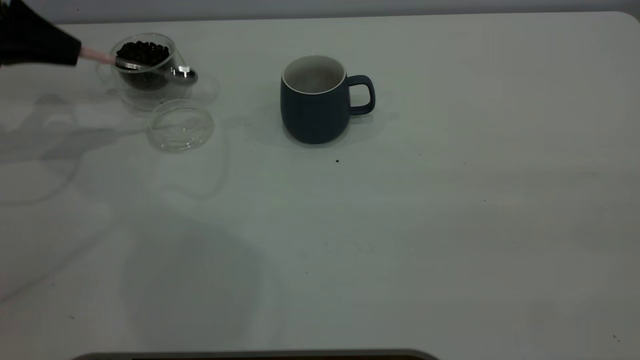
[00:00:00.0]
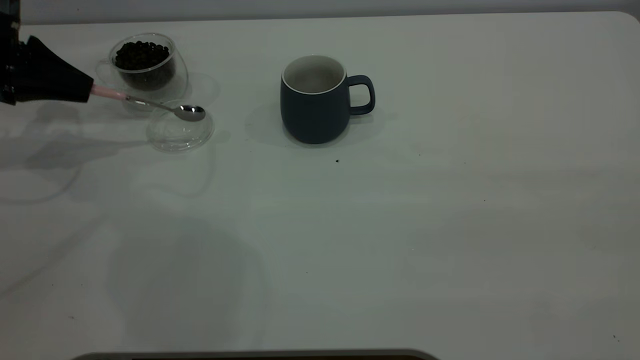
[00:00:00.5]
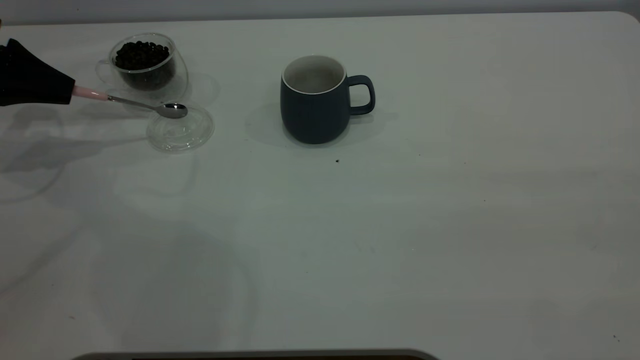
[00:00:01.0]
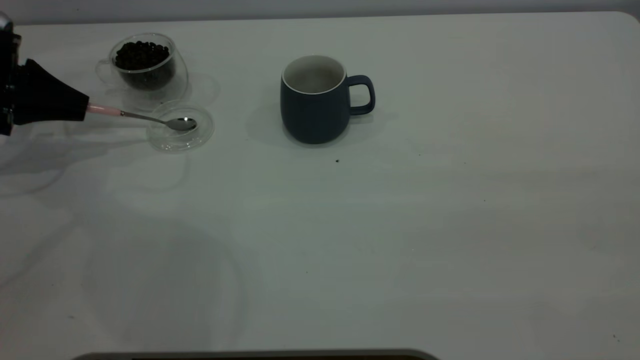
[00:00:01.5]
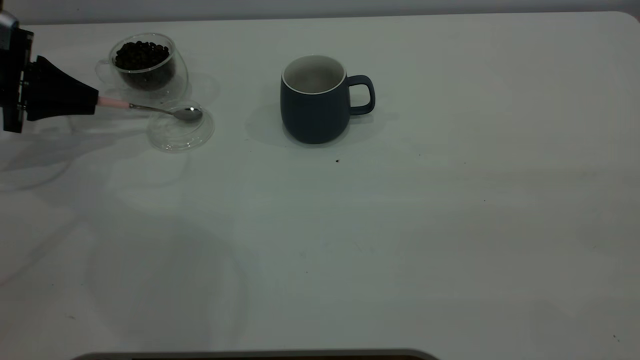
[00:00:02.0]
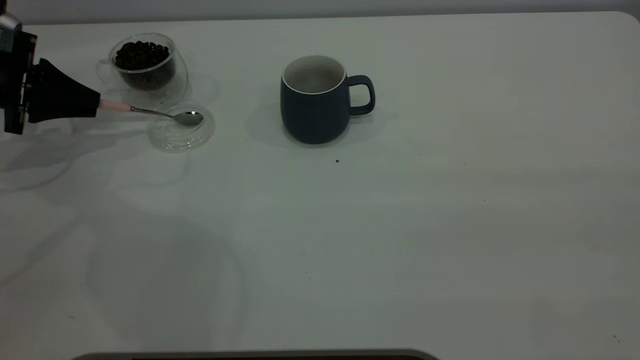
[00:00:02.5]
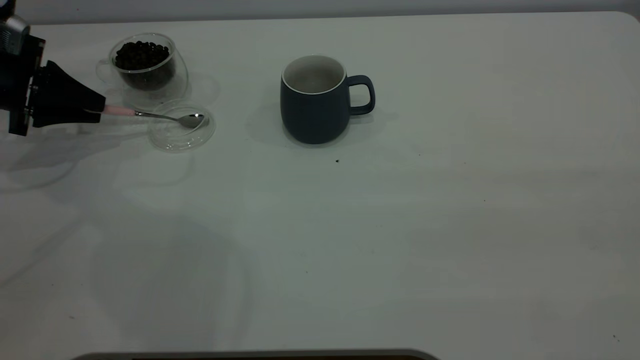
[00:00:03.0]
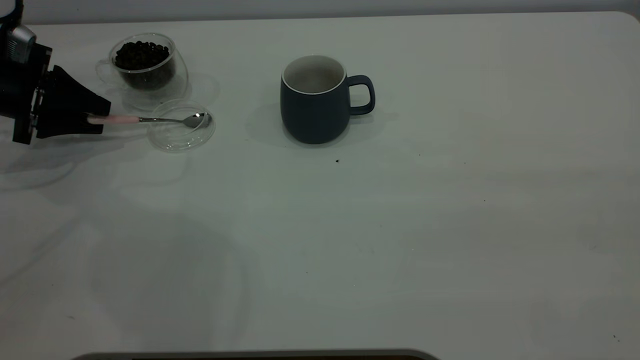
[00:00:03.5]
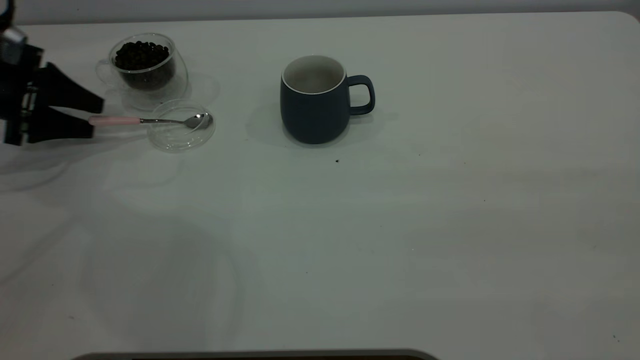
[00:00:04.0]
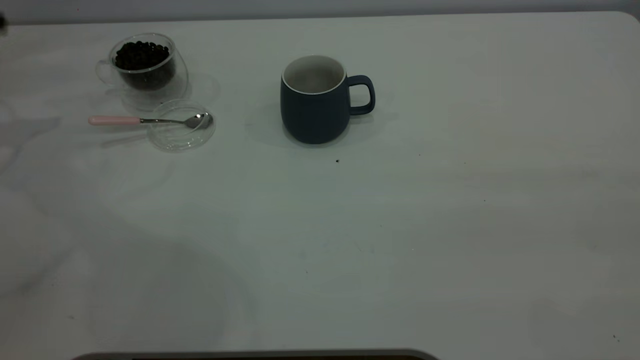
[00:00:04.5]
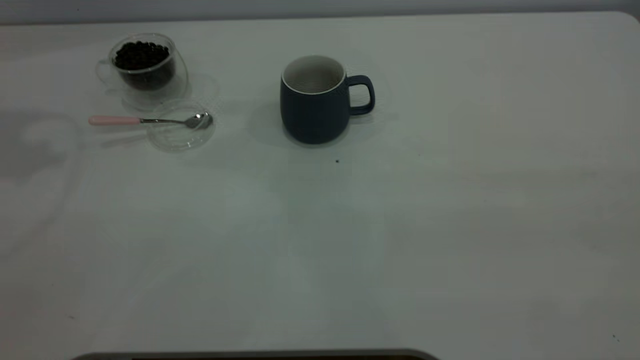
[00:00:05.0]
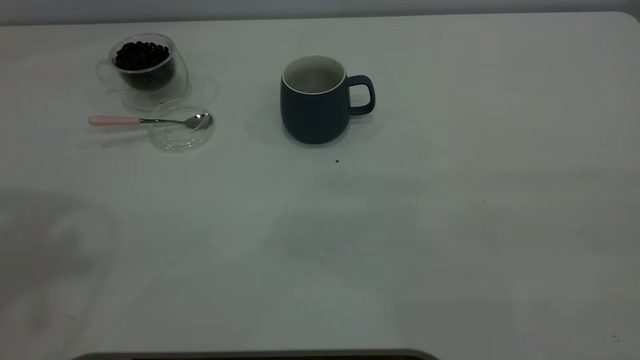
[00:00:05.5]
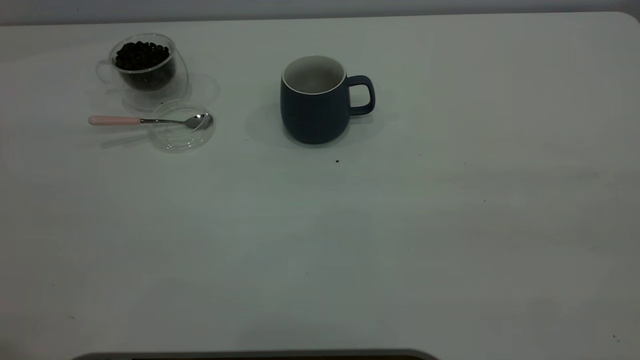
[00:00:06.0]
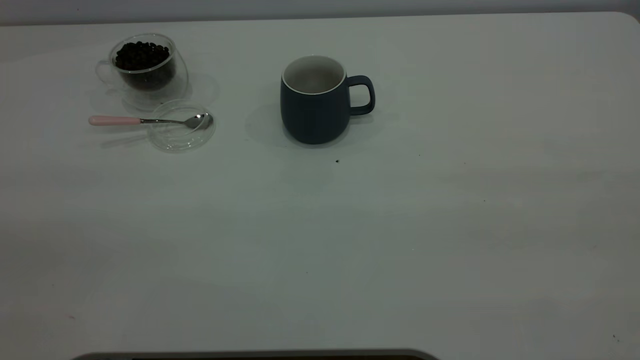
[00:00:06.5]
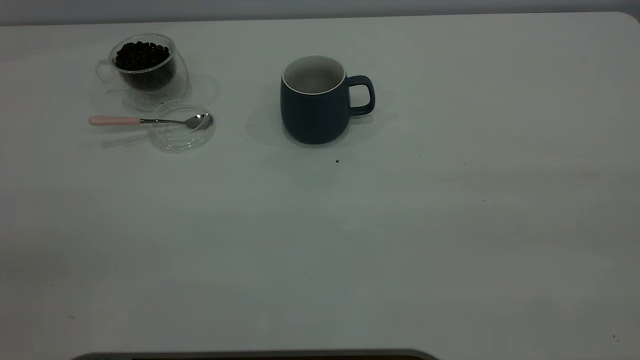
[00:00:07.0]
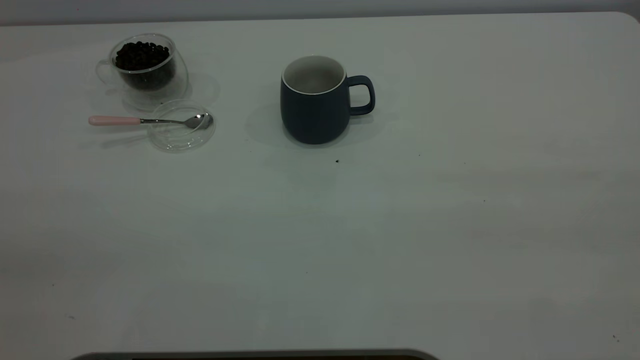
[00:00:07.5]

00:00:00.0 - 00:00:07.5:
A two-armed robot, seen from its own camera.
Task of the whole recording: the right gripper place the grey cup in the center of the table, the left gripper take the pink spoon from the cup lid and scoop out the coffee beans from the coffee cup and put them into the grey cup, the left gripper put the spoon back into the cup lid.
Step, 00:00:00.0 - 00:00:04.0: Place the spoon back in its original place.
00:00:00.0 - 00:00:02.0: The left gripper shifts roughly 5 cm downward.
00:00:02.0 - 00:00:04.0: The left gripper opens.
00:00:04.0 - 00:00:05.5: The left gripper travels upward and backward by about 40 cm.

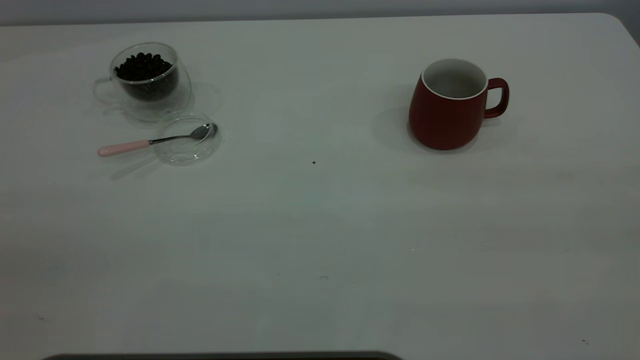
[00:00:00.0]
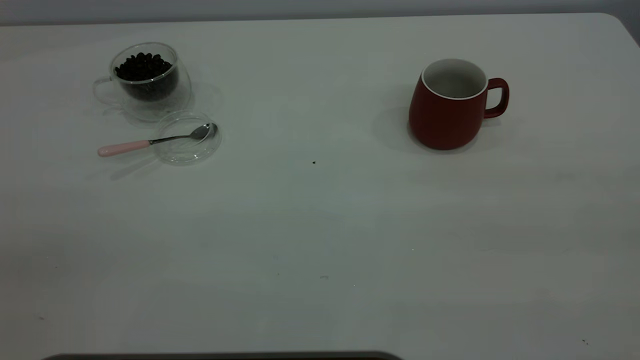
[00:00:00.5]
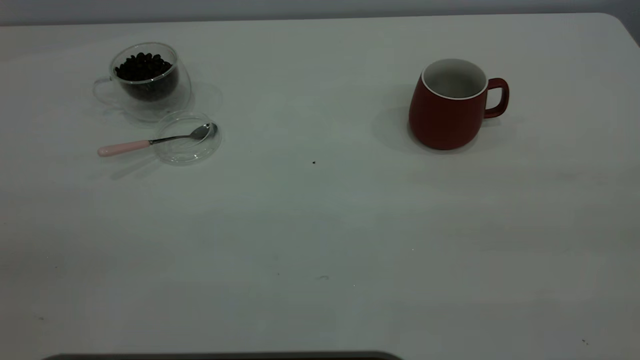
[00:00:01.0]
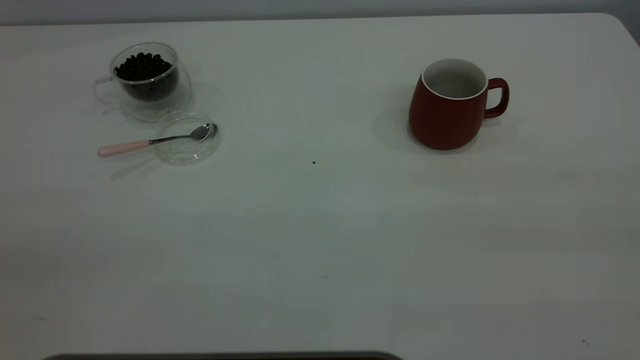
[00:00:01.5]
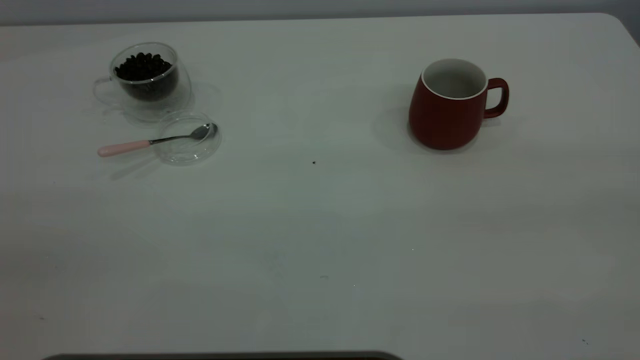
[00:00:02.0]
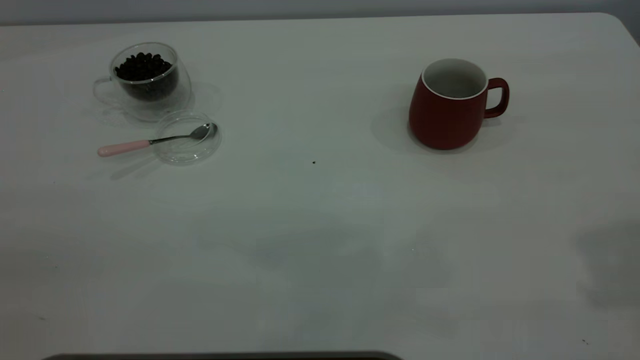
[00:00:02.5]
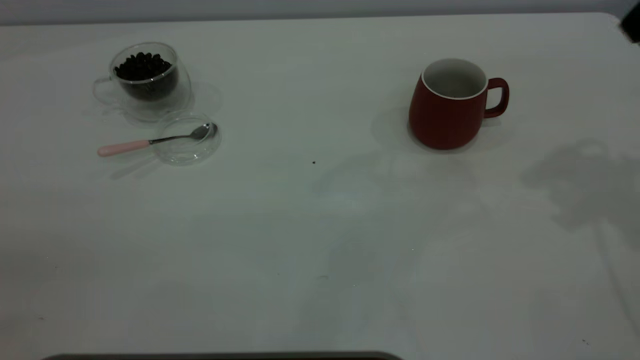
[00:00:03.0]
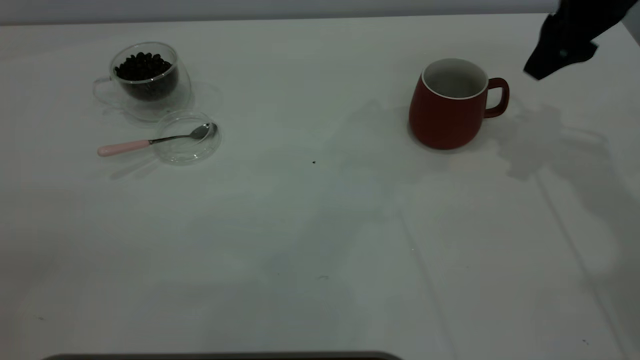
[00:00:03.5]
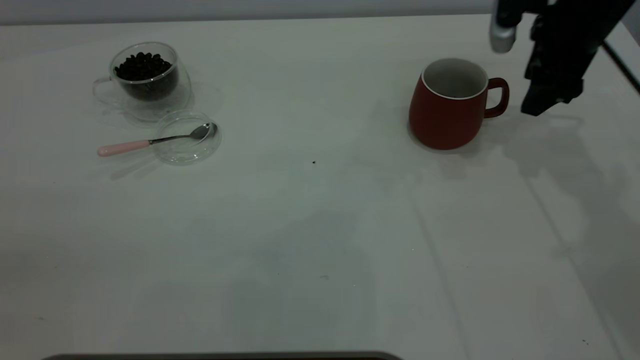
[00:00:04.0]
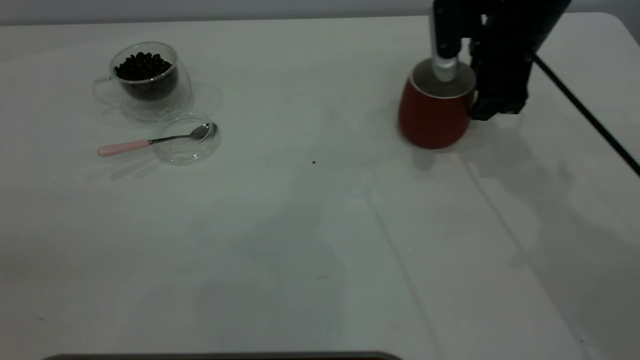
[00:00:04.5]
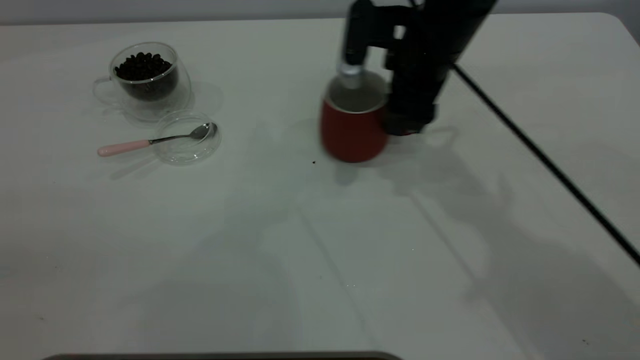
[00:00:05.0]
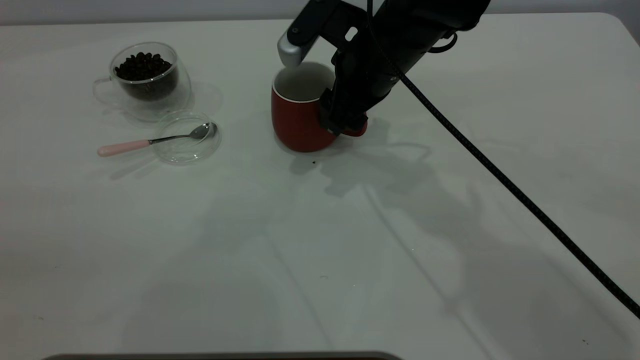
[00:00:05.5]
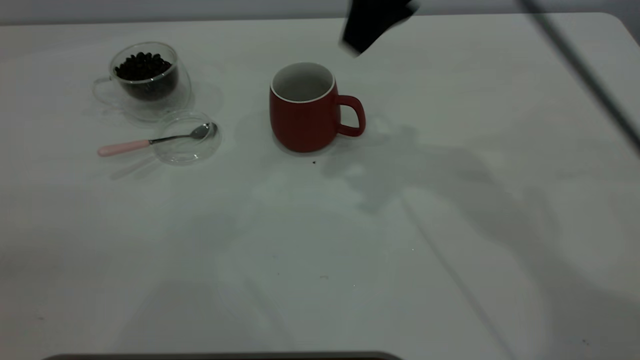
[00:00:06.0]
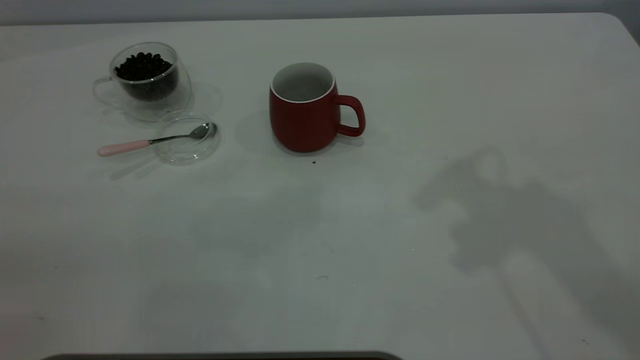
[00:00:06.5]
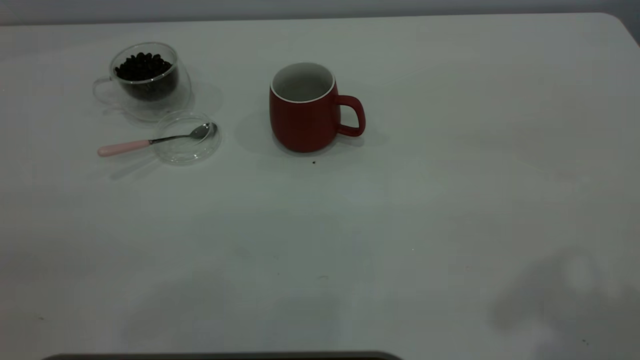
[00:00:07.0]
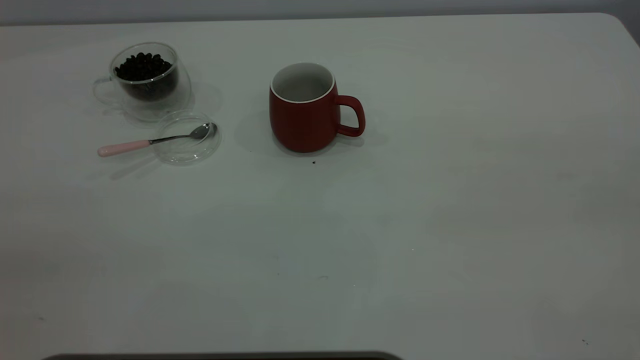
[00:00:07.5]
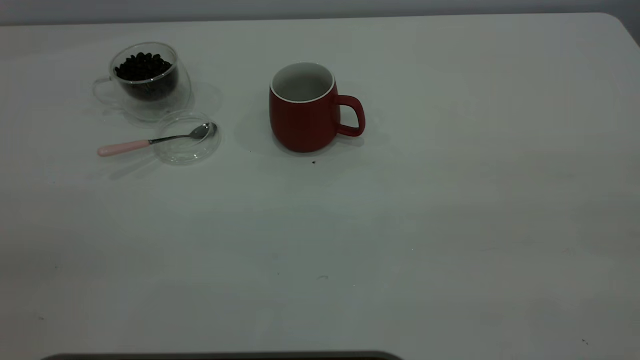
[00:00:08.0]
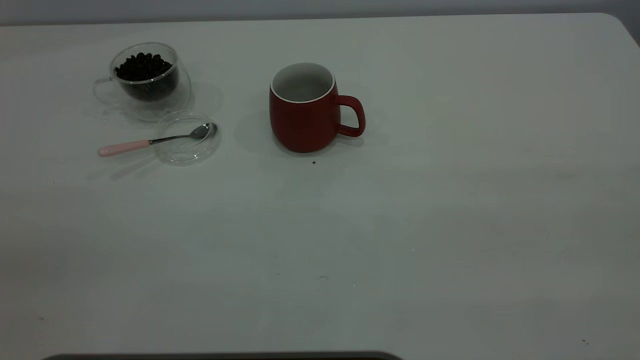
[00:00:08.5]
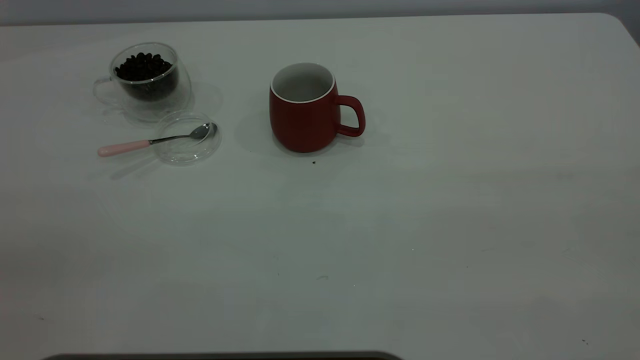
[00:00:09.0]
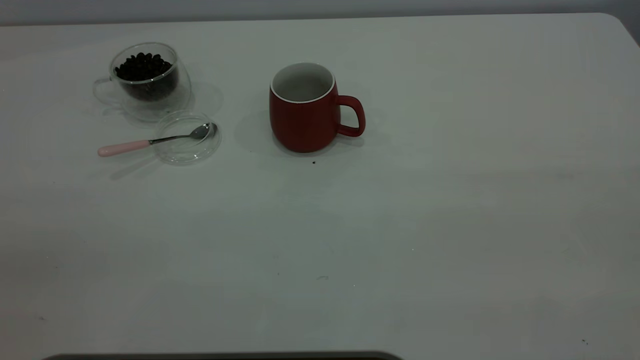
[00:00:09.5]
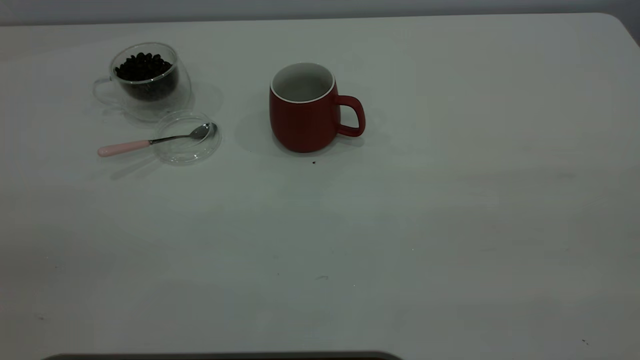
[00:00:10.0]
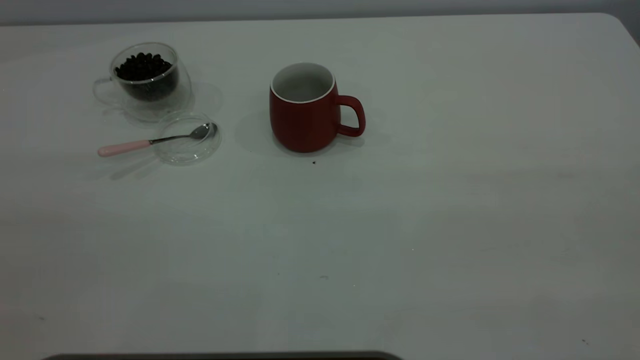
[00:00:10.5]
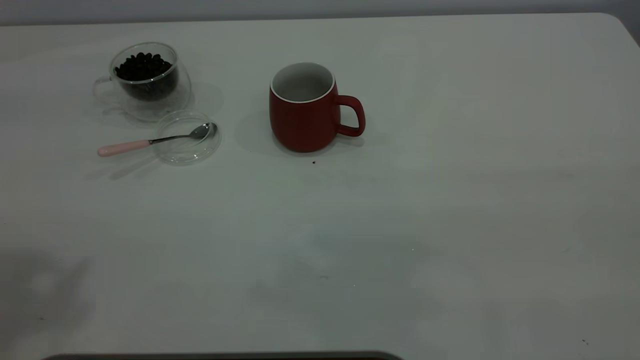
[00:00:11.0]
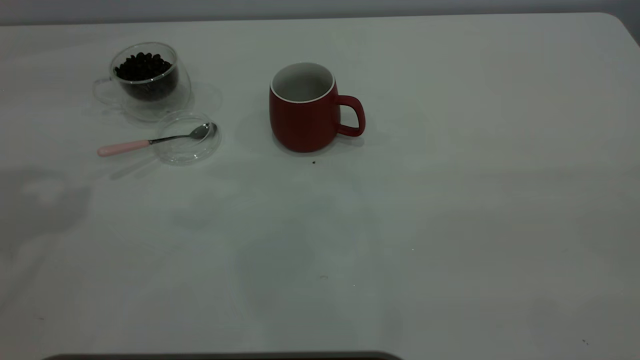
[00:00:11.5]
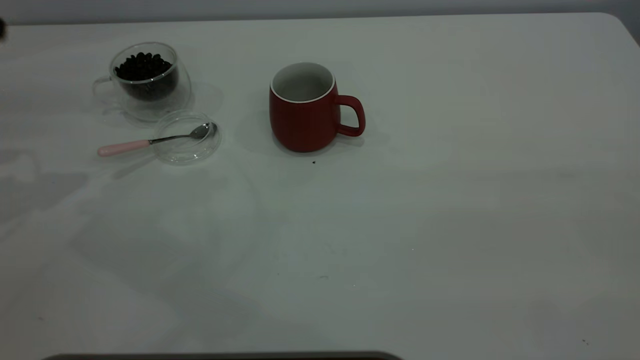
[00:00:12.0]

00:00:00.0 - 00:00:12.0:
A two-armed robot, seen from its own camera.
Task of the whole recording: the right gripper place the red cup in the center of the table, the left gripper take the pink spoon from the cup lid and scoop out the coffee beans from the coffee cup and put them into the red cup, the left gripper put the spoon back into the cup lid.
Step, 00:00:00.0 - 00:00:05.5: Move the cup to the center of view.
00:00:02.0 - 00:00:04.0: The right gripper goes some 50 cm forward and downward.
00:00:04.0 - 00:00:06.0: The right gripper shifts about 20 cm to the left, upward and backward.
00:00:06.0 - 00:00:08.0: The right gripper travels backward and to the right by about 40 cm.
